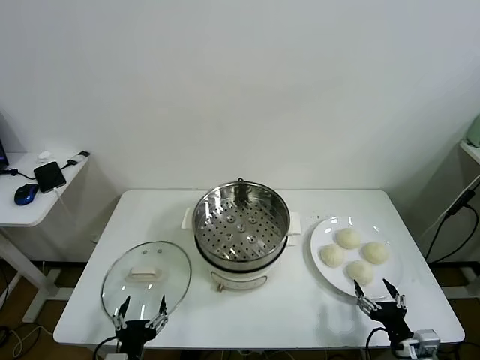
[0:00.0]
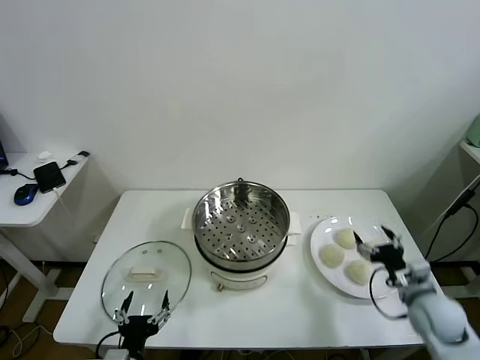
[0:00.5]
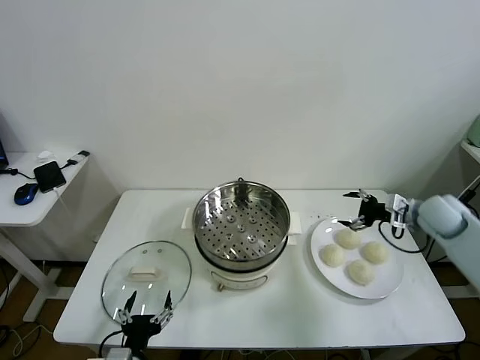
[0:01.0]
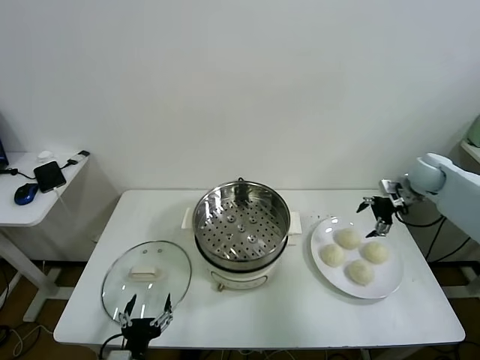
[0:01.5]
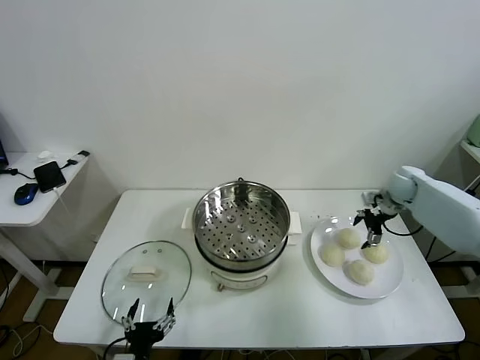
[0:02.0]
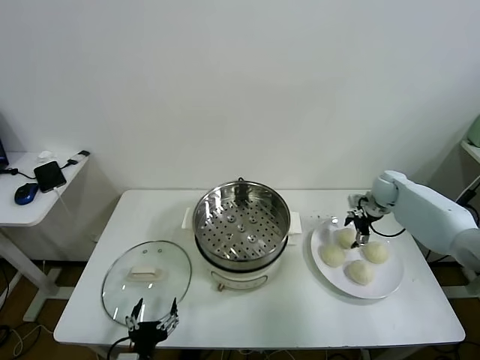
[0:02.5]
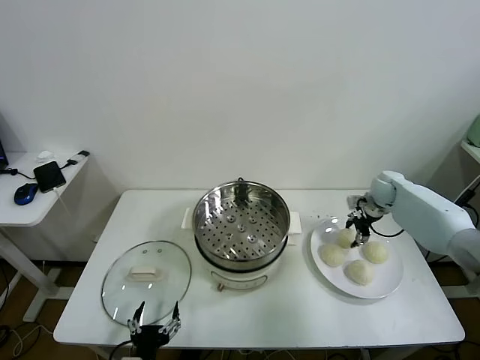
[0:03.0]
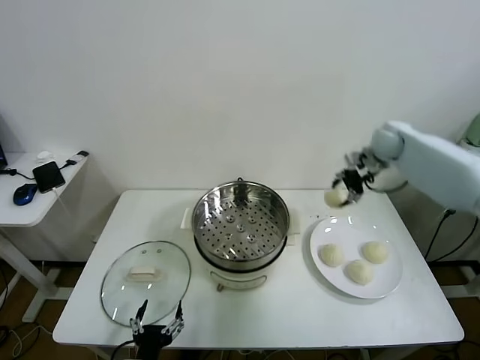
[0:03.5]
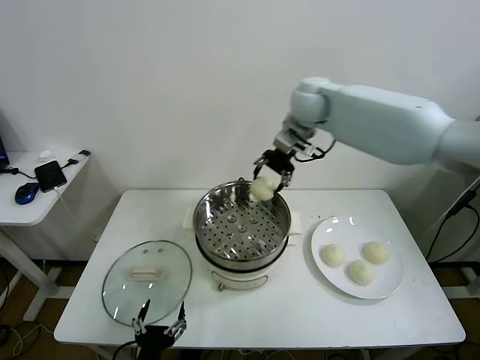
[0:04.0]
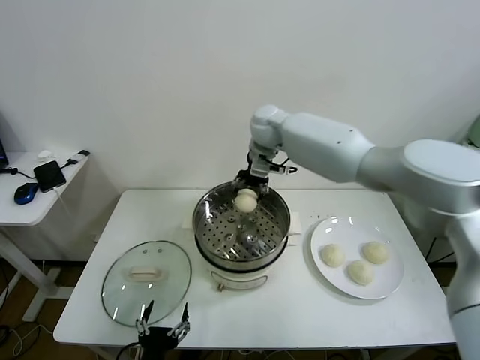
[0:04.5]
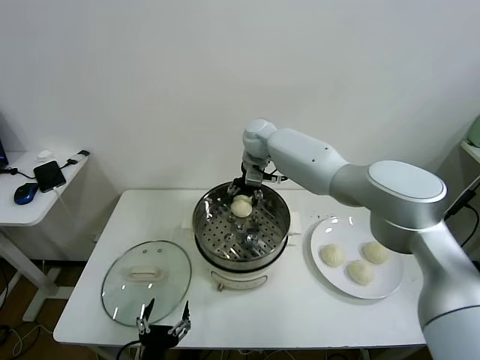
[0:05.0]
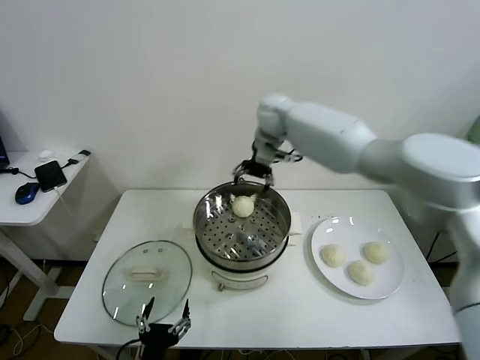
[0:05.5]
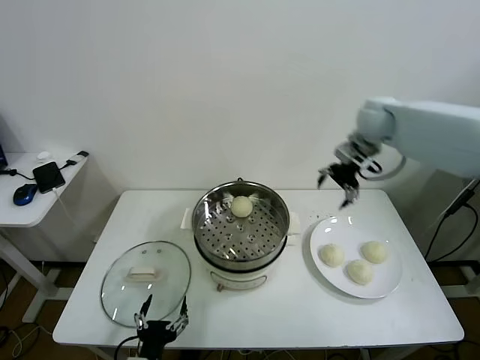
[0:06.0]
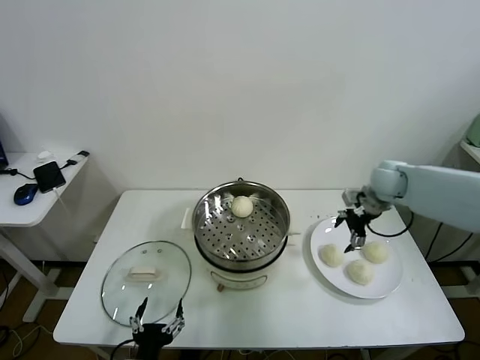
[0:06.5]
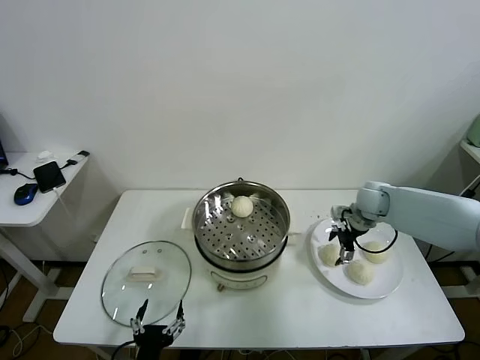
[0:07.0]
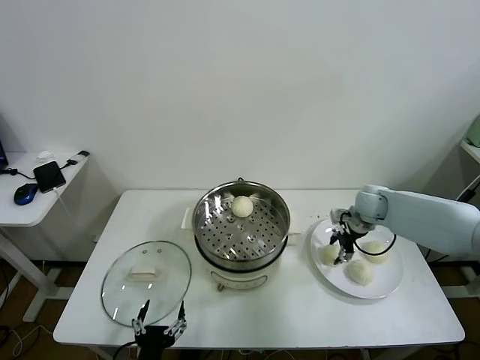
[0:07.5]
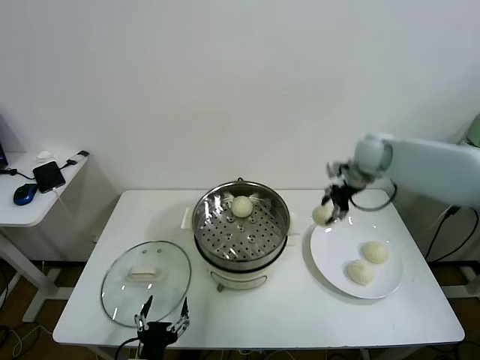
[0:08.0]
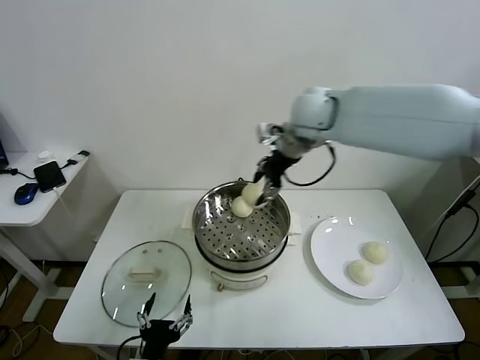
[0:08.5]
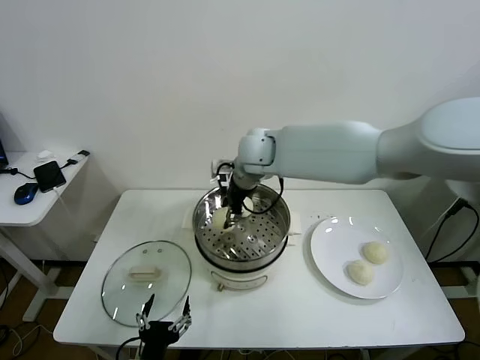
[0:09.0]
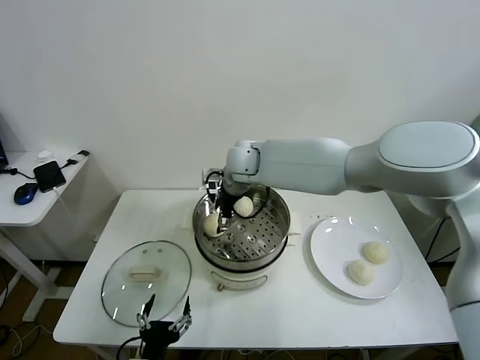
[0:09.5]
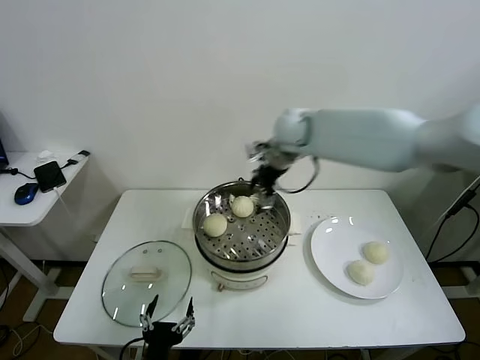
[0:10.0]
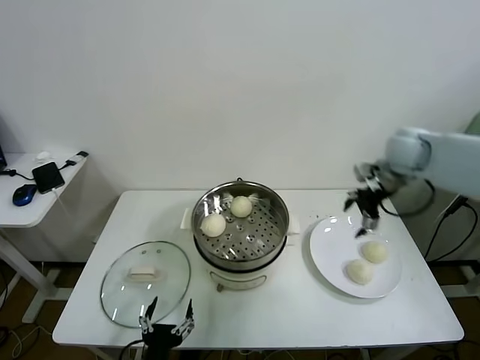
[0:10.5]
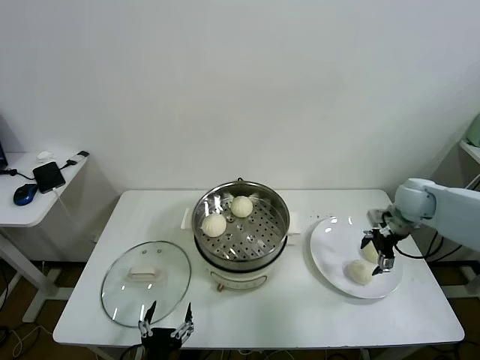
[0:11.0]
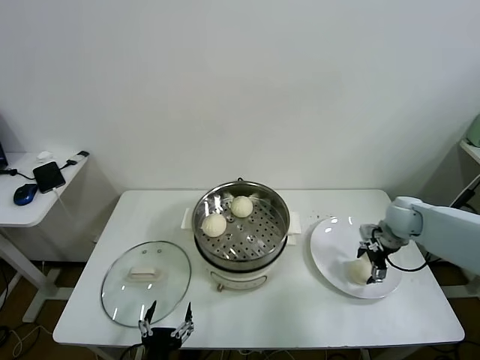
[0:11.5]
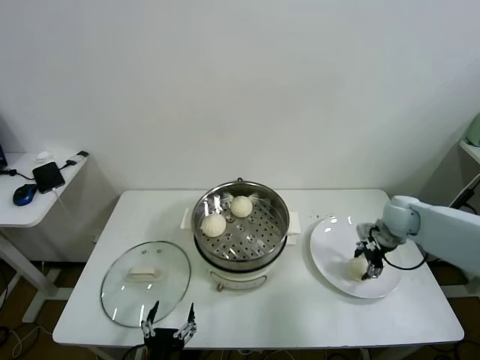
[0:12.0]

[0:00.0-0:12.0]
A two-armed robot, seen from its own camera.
Task of the whole recording: take steamed baozi put them in steamer.
Step, 0:00.0 to 0:02.5: Grasp the baozi in the plate with right gripper.
Step, 0:03.0 to 0:05.0: Place the baozi on the steamer with right gripper.
Step, 0:05.5 to 0:07.5: Grasp the baozi in the plate with right gripper.
Step, 0:08.0 to 0:09.5: Place the baozi on the steamer with right gripper.
Step, 0:10.0 to 0:11.5: Grasp the baozi in the plate with right gripper.
0:02.0 to 0:04.0: The right gripper goes approximately 40 cm to the left and upward, and closes its fingers.
0:04.0 to 0:06.0: The right gripper is displaced to the right by some 20 cm, and opens.
0:06.0 to 0:08.0: The right gripper goes downward and returns, approximately 20 cm each way, and closes.
0:08.0 to 0:10.0: The right gripper travels to the left by about 15 cm, and opens.
0:10.0 to 0:12.0: The right gripper heads to the right and downward, covering some 30 cm, and closes.

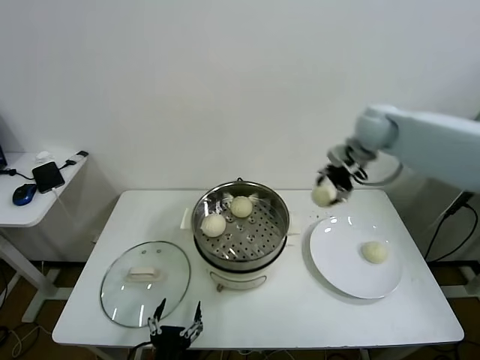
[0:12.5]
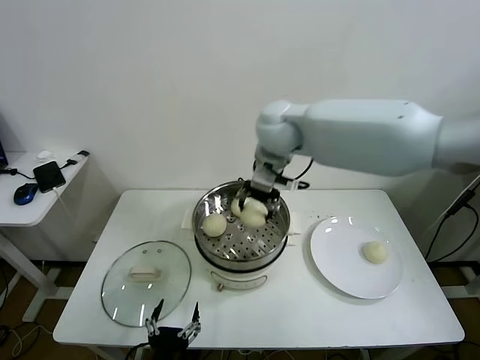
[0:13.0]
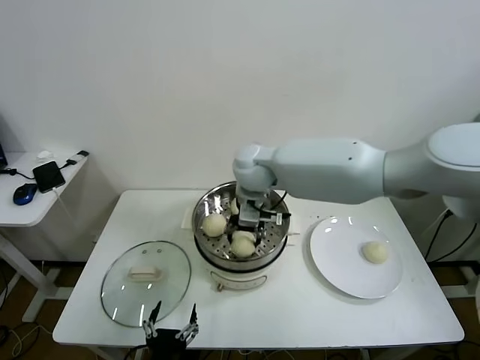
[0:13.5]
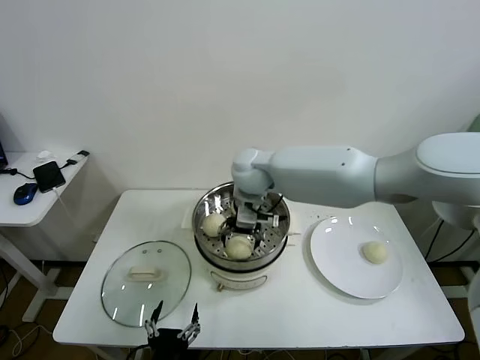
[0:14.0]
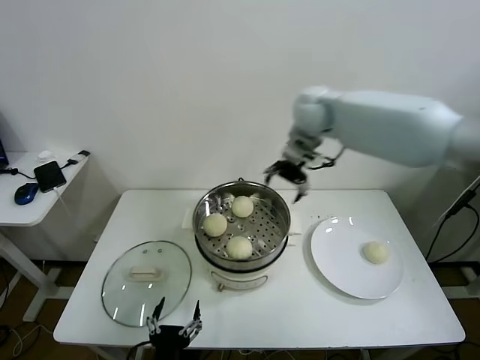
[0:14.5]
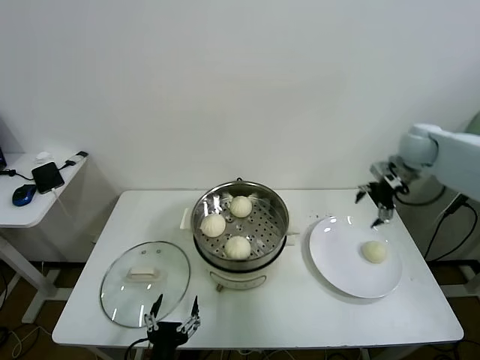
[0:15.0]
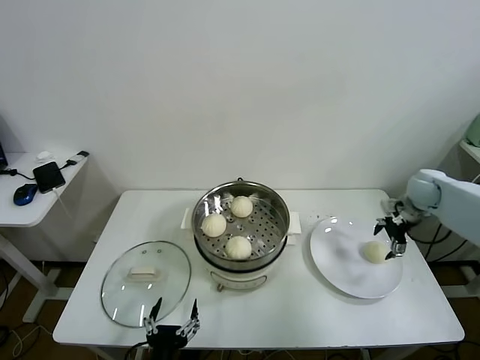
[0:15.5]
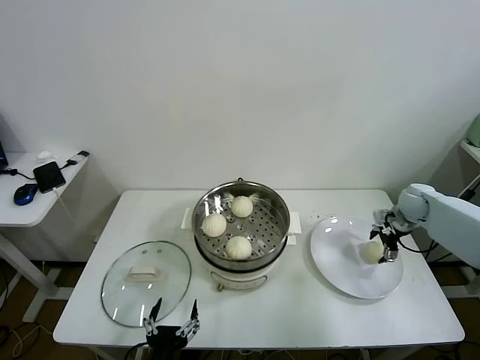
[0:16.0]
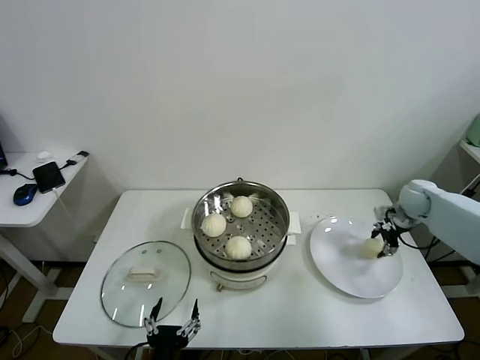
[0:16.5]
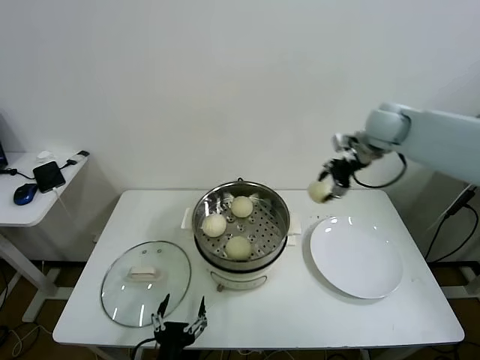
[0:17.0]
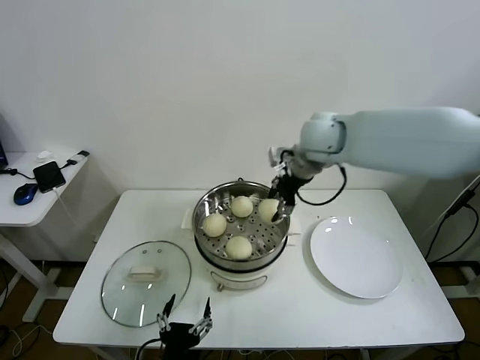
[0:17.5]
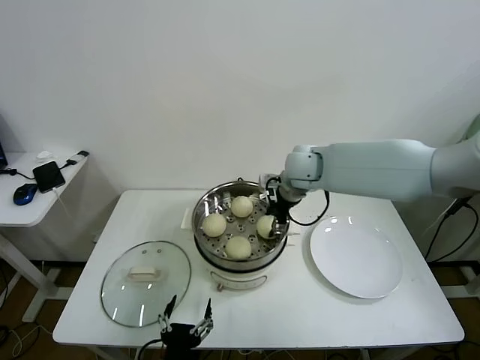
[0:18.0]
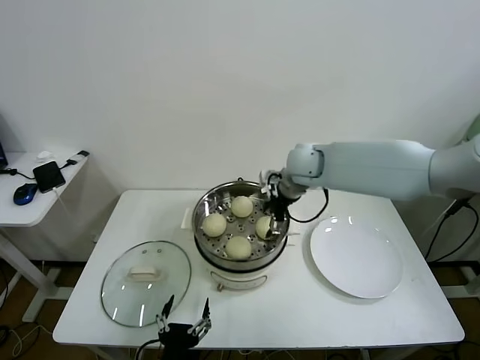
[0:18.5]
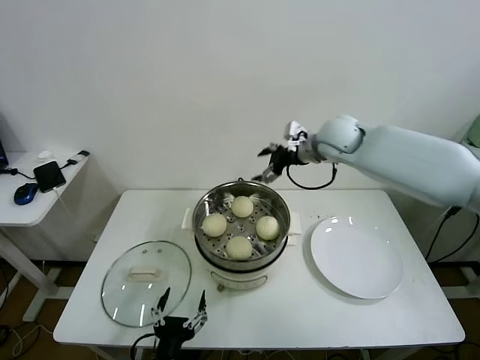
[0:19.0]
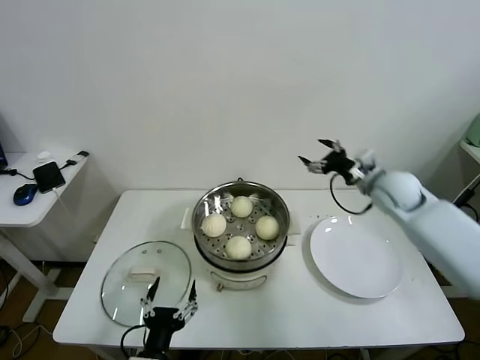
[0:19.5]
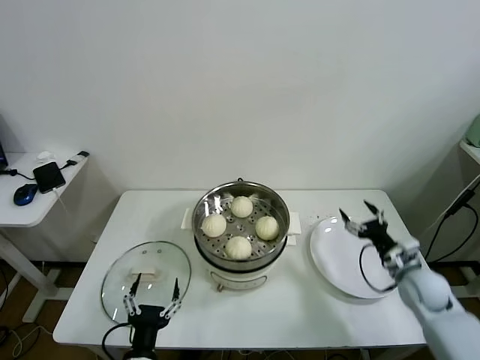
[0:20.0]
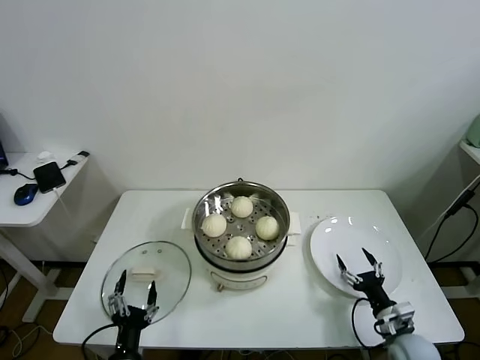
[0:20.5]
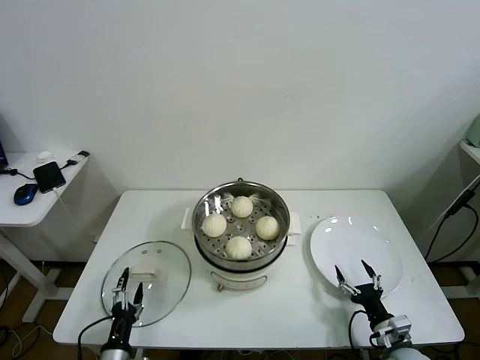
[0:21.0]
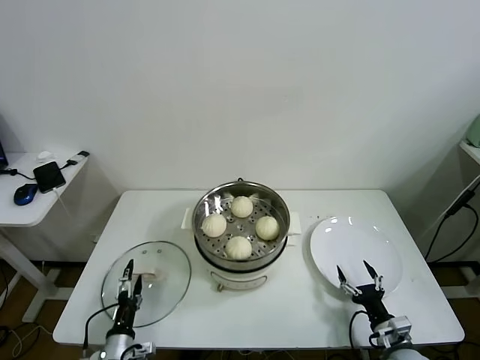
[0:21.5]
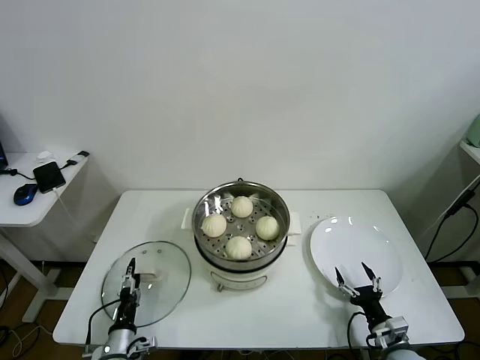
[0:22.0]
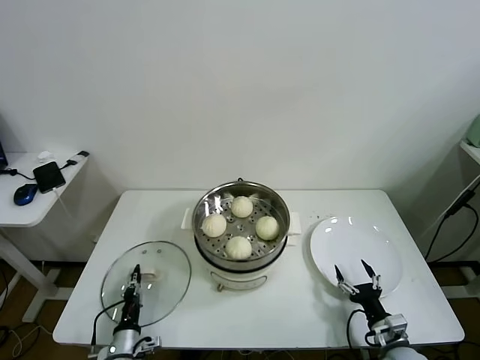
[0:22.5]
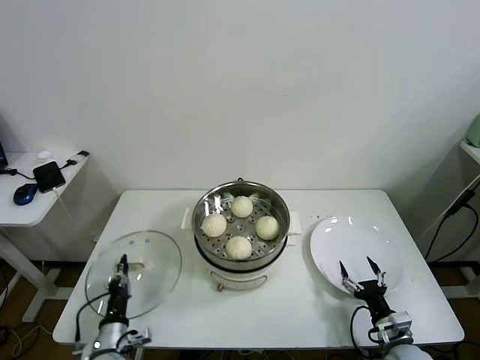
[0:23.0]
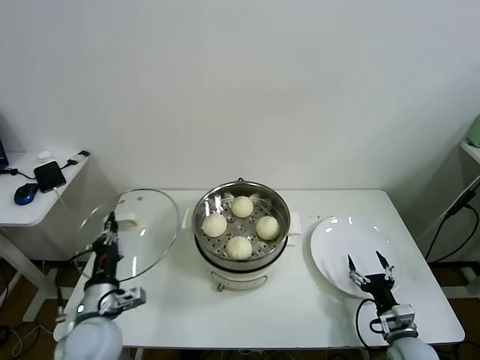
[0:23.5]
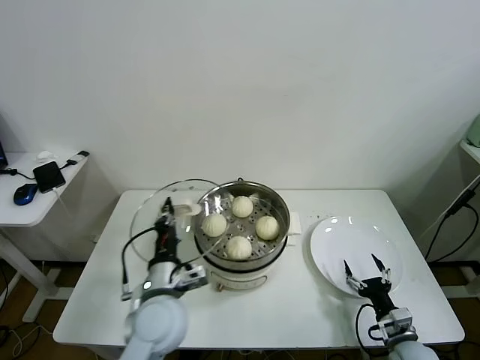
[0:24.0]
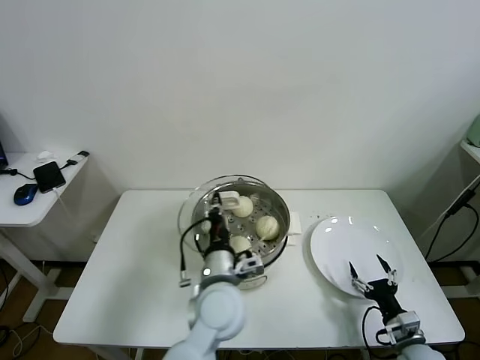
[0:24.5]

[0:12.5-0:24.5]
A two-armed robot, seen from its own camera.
Task of the whole recording: take steamed baozi put them in steamer.
Step, 0:12.5 to 0:14.0: Place the baozi on the steamer with right gripper.
Step, 0:14.5 to 0:16.0: Grasp the baozi in the plate with right gripper.
Step, 0:16.5 to 0:18.0: Place the baozi on the steamer with right gripper.
Step, 0:18.5 to 0:22.5: Grasp the pot lid with left gripper.
0:12.5 to 0:14.5: The right gripper goes to the left and returns, approximately 25 cm each way, and opens its fingers.
0:14.5 to 0:16.5: The right gripper is displaced to the right and downward by roughly 35 cm, and closes its fingers.
0:16.5 to 0:18.5: The right gripper moves to the left, roughly 30 cm, and opens.
0:18.5 to 0:20.5: The left gripper heads to the left, covering approximately 10 cm, while the right gripper moves downward, backward and to the right, approximately 50 cm.
0:20.5 to 0:22.5: The left gripper moves downward, forward and to the left, roughly 15 cm, and closes.
0:22.5 to 0:24.5: The left gripper heads upward and to the right, covering approximately 35 cm.

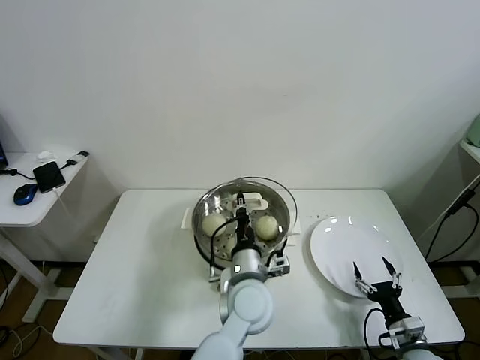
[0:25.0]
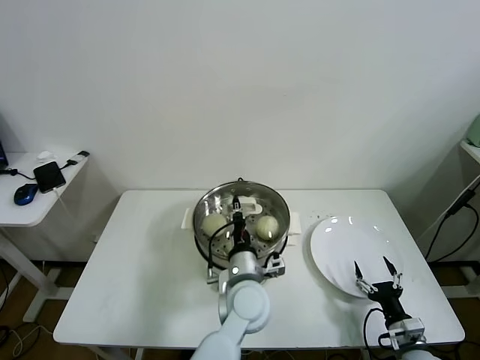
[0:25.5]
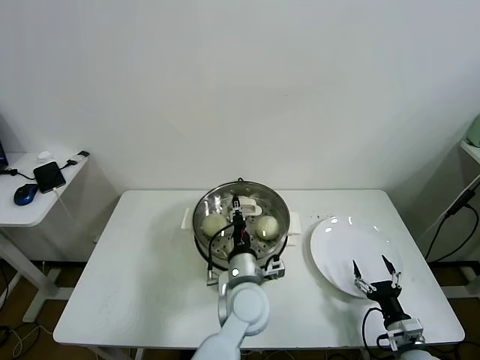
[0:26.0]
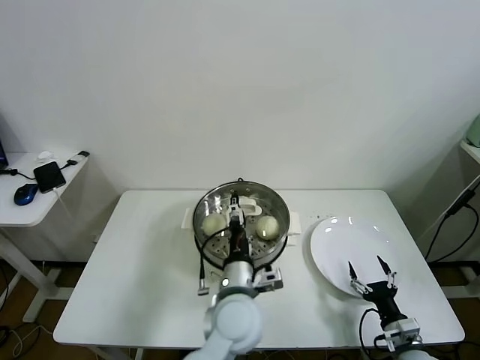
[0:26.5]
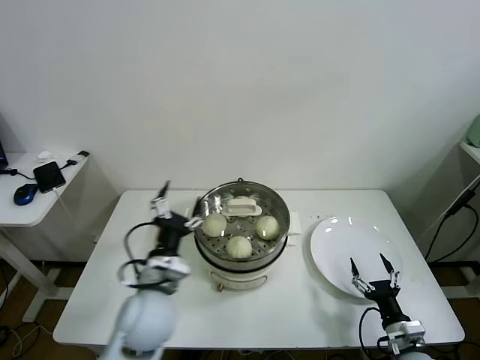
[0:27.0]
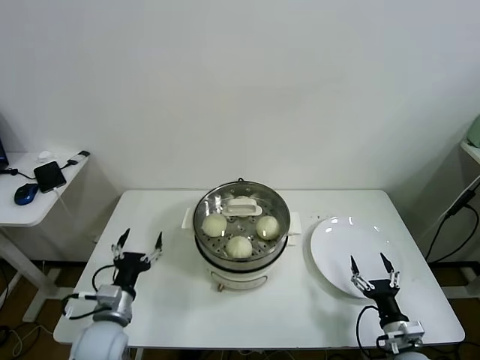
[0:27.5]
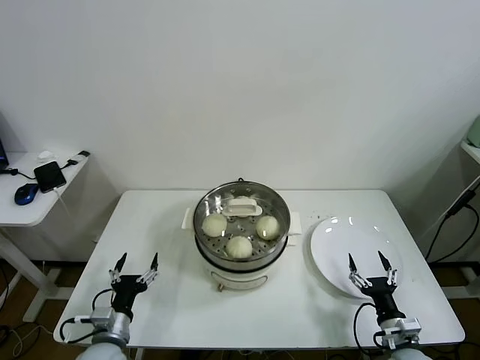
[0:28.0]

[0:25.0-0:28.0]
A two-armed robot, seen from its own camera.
Task of the whole recording: take steamed baozi put them in steamer.
0:25.0 to 0:26.5: The left gripper opens up.
0:26.5 to 0:28.0: The left gripper shifts roughly 30 cm to the left and downward.
